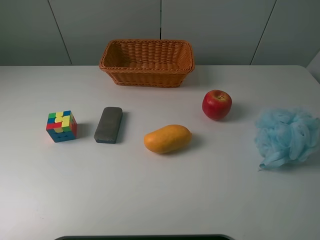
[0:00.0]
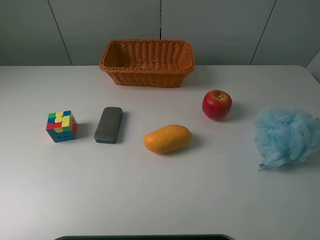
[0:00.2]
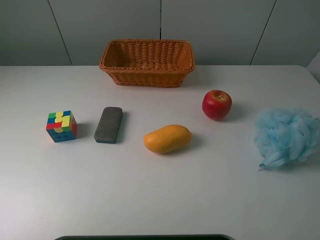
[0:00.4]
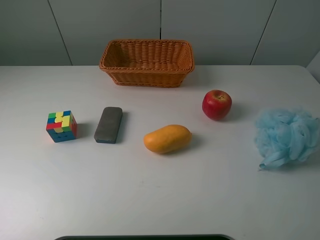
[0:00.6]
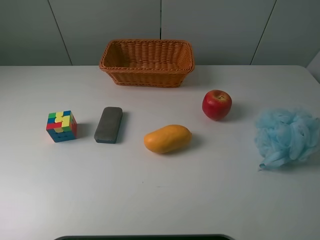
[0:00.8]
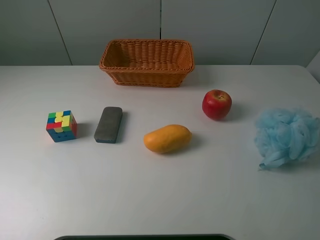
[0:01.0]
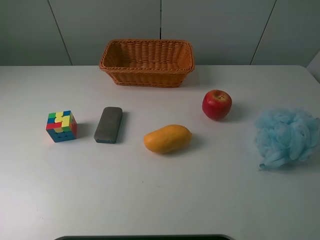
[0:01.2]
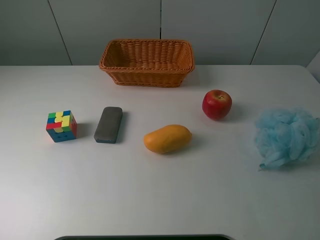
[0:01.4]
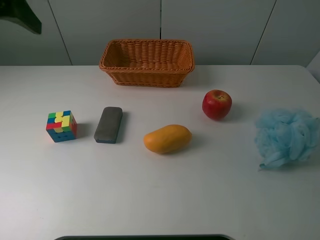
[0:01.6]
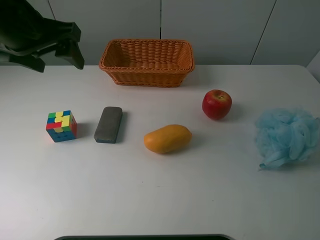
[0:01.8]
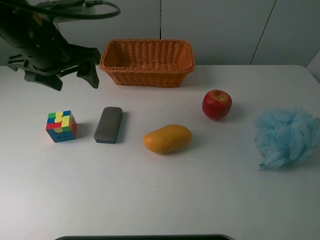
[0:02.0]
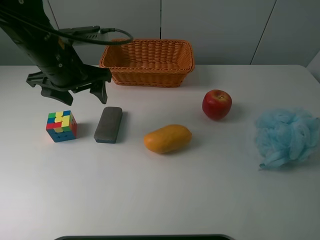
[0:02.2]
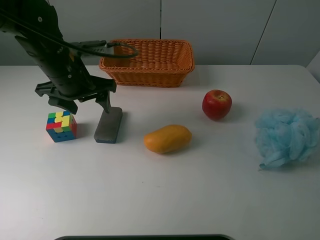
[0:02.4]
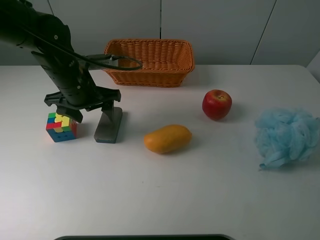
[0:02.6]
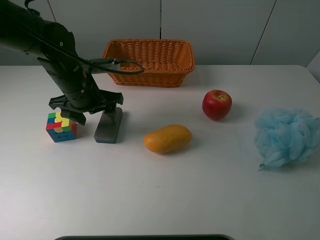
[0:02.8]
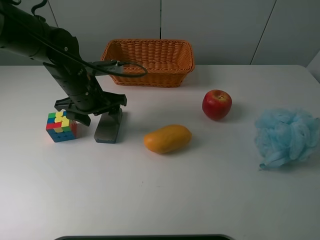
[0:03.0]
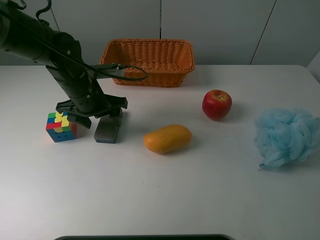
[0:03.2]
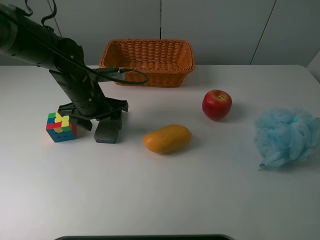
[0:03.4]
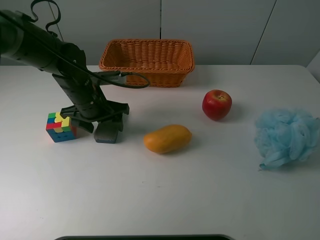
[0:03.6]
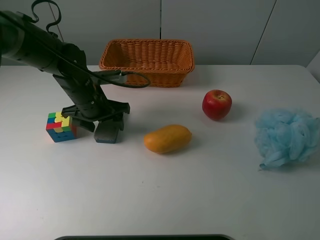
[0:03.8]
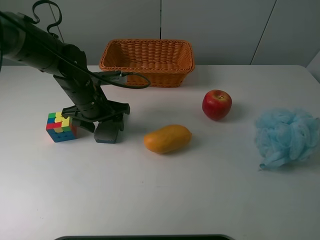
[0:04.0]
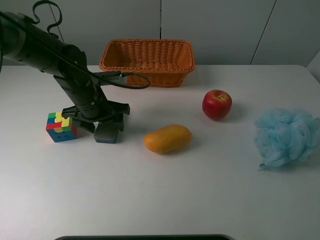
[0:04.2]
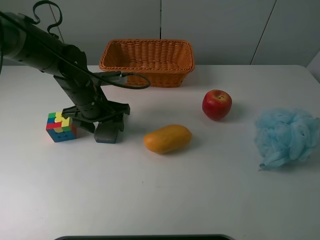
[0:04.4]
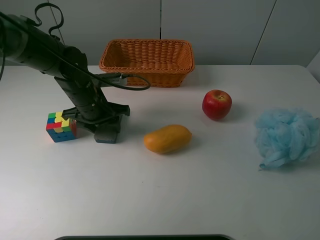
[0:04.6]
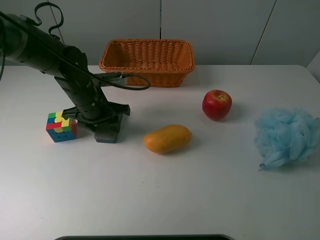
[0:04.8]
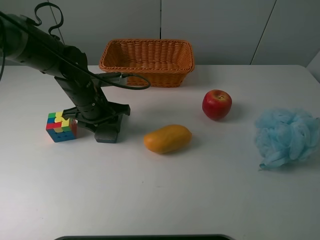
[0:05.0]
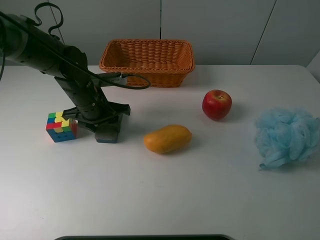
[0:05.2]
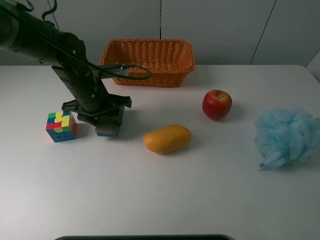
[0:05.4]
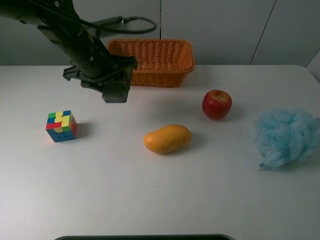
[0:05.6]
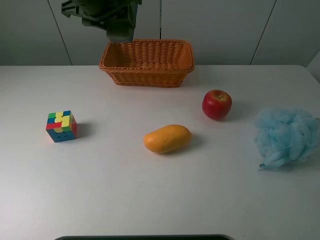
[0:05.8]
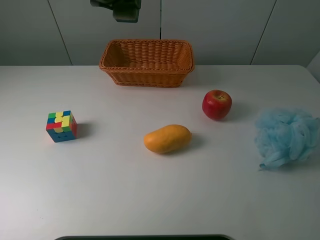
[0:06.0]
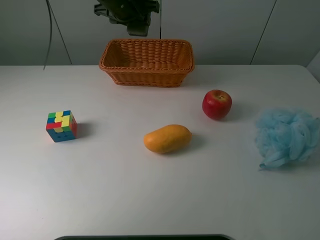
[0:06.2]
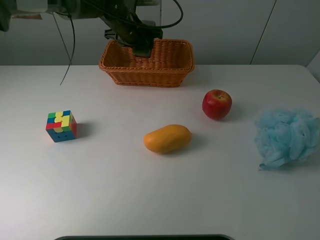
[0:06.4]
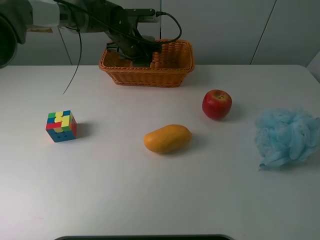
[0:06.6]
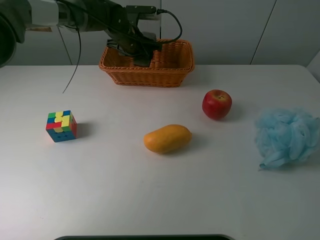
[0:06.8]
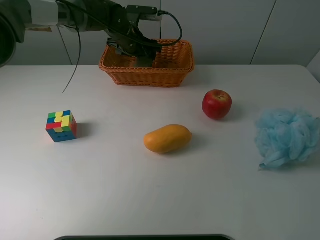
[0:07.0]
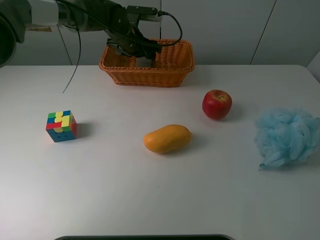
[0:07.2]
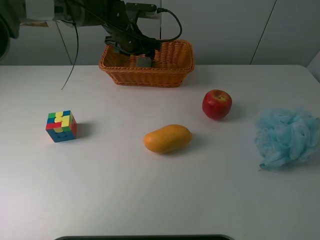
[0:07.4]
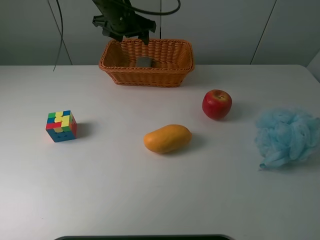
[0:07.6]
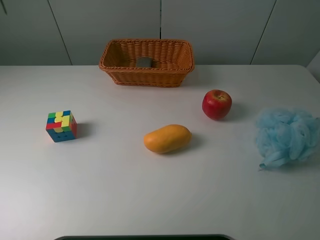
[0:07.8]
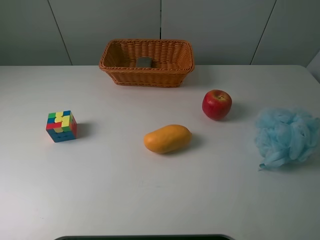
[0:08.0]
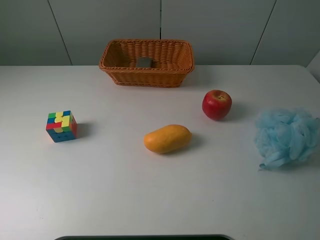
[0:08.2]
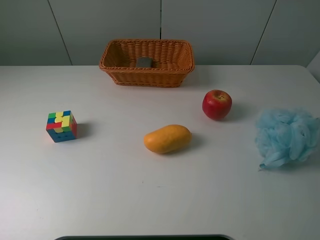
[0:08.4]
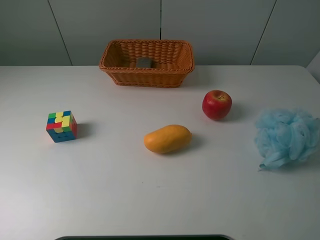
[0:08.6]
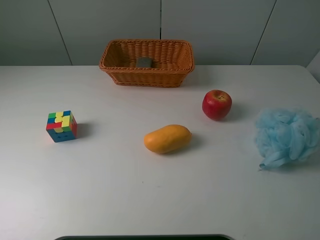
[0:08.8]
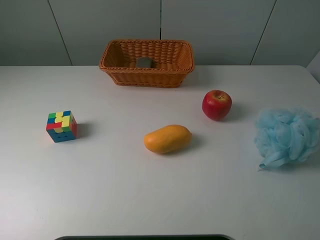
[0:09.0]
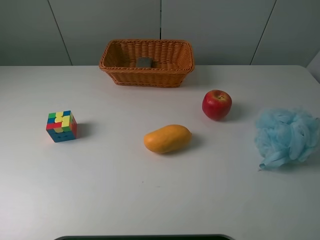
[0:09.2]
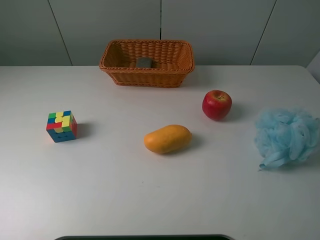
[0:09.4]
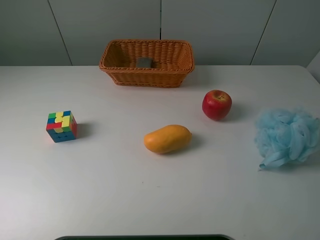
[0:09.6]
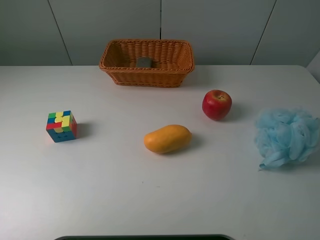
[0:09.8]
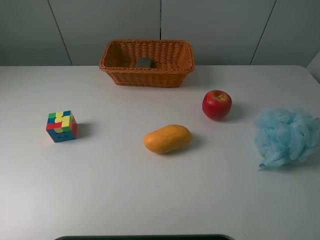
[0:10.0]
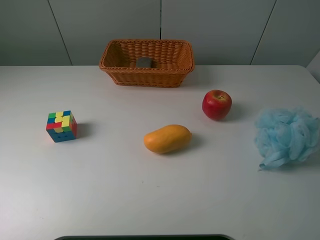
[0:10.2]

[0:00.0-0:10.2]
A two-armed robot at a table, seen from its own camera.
Task of the whole recording: use a picker to grab the item closest to the cube and place it in the basket.
Step, 0:00.0 to 0:04.8: Grasp the blackboard erasure with the left gripper.
Step, 0:05.0 to 0:07.2: Place the blackboard erasure into the basket with the left gripper.
0:01.4 to 0:03.0: The left gripper shifts roughly 30 cm downward, to the right and forward.
0:03.0 to 0:04.4: The grippers make only small movements.
0:04.4 to 0:05.8: The left gripper heads upward, covering about 20 cm, and closes up.
0:05.8 to 0:07.2: The left gripper goes approximately 20 cm downward and forward, and opens.
0:07.2 to 0:08.8: The left gripper goes approximately 60 cm backward, upward and to the left.
